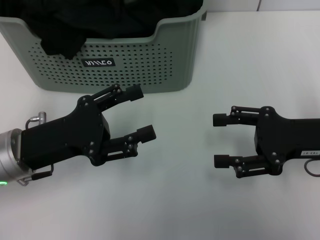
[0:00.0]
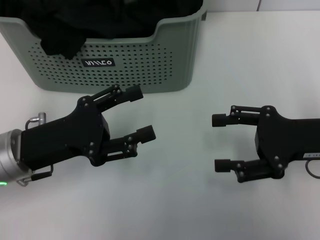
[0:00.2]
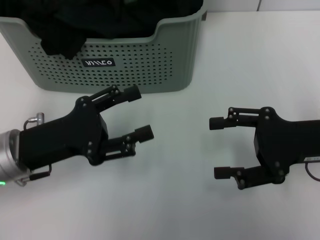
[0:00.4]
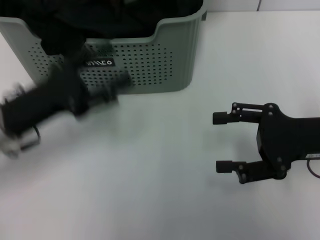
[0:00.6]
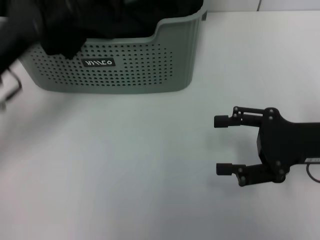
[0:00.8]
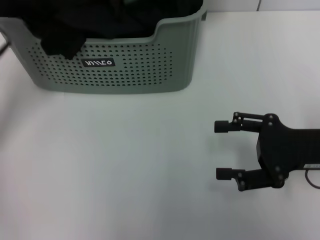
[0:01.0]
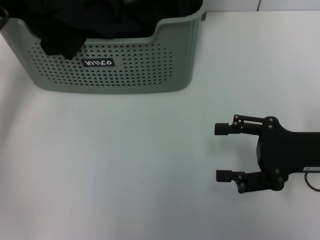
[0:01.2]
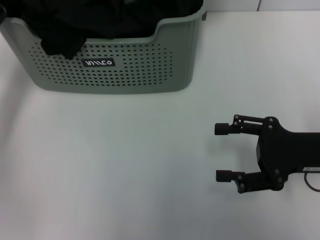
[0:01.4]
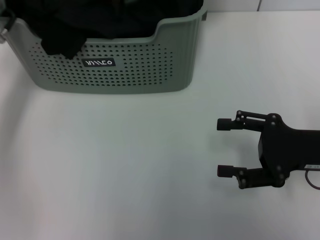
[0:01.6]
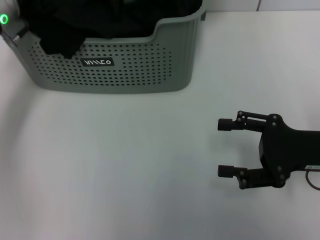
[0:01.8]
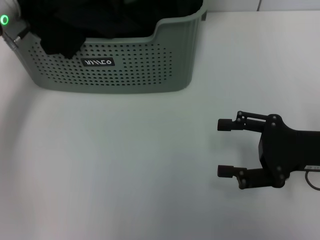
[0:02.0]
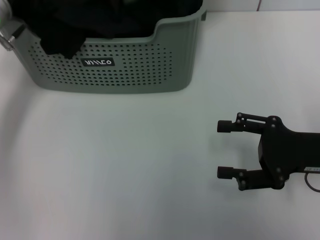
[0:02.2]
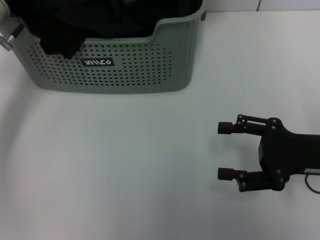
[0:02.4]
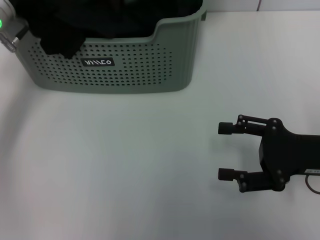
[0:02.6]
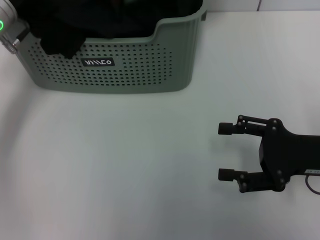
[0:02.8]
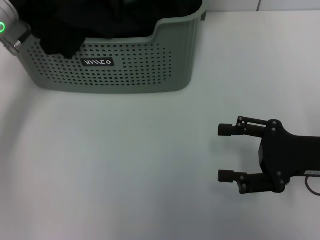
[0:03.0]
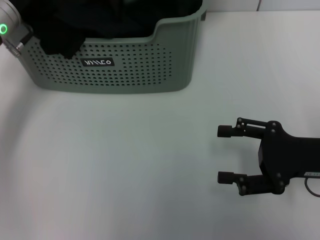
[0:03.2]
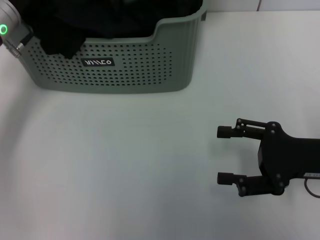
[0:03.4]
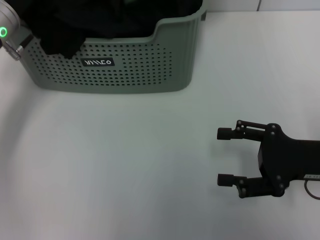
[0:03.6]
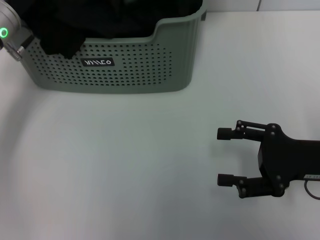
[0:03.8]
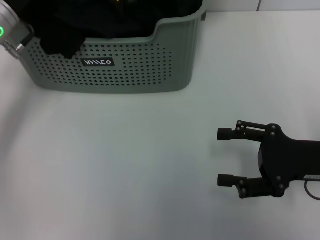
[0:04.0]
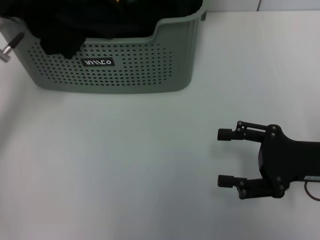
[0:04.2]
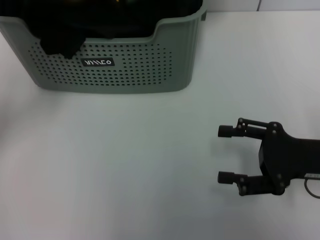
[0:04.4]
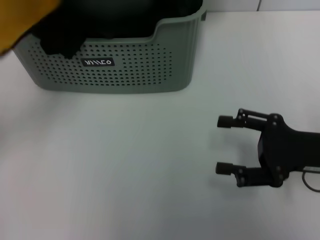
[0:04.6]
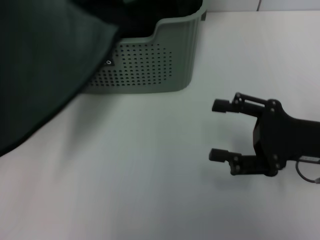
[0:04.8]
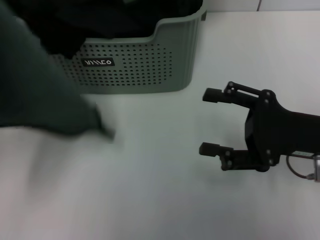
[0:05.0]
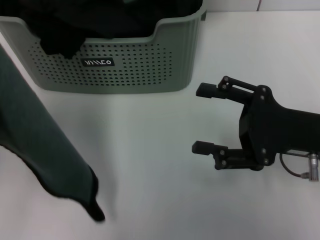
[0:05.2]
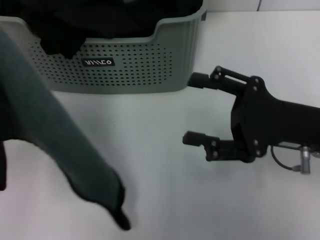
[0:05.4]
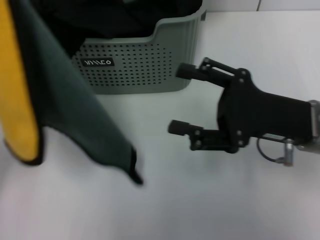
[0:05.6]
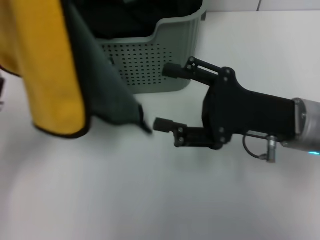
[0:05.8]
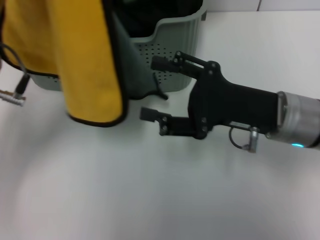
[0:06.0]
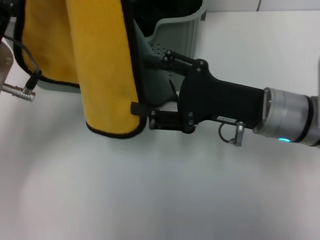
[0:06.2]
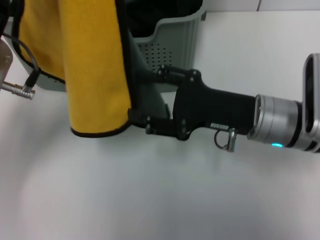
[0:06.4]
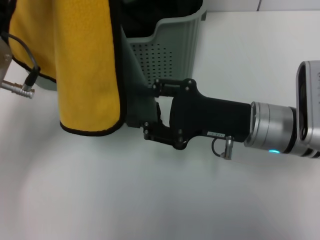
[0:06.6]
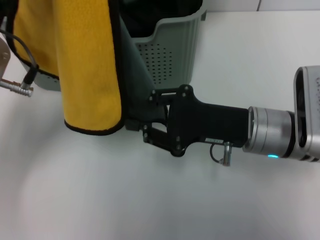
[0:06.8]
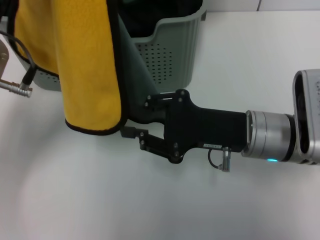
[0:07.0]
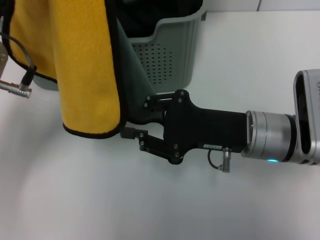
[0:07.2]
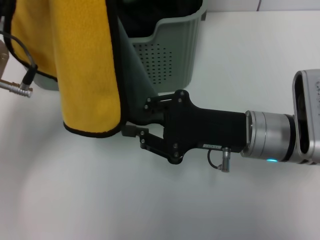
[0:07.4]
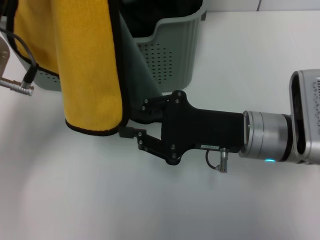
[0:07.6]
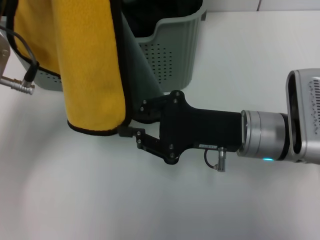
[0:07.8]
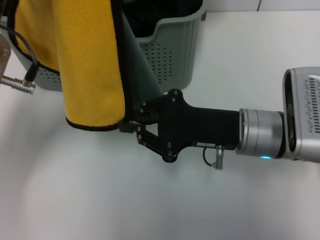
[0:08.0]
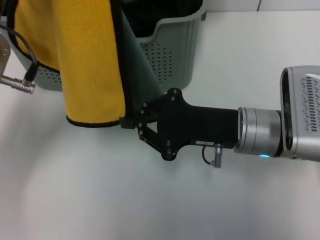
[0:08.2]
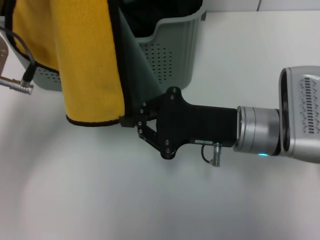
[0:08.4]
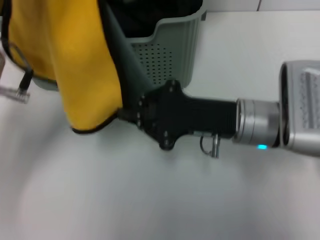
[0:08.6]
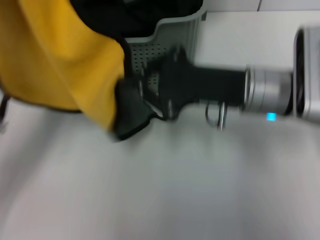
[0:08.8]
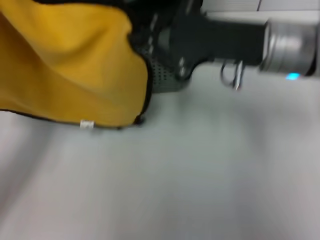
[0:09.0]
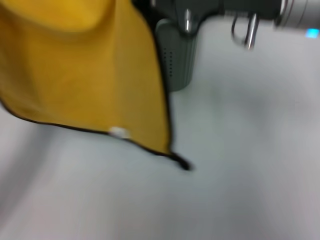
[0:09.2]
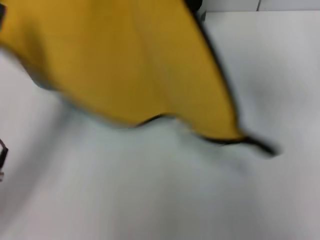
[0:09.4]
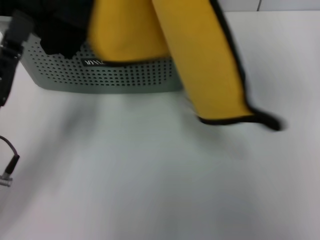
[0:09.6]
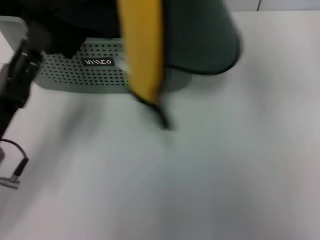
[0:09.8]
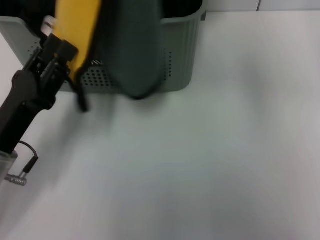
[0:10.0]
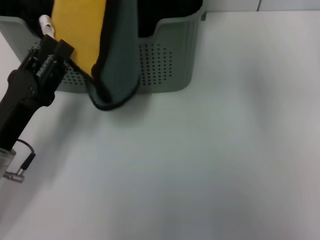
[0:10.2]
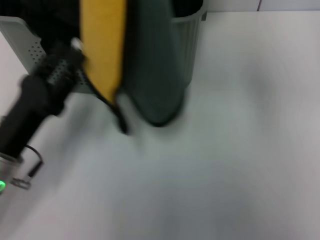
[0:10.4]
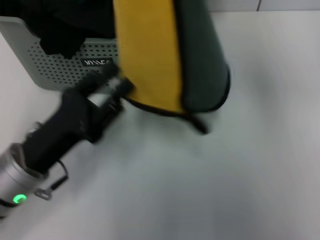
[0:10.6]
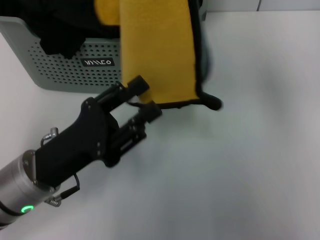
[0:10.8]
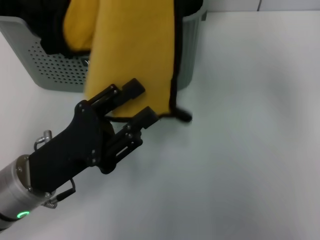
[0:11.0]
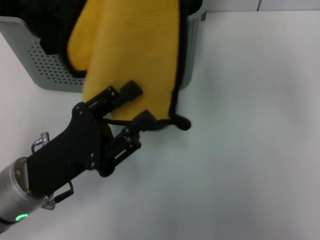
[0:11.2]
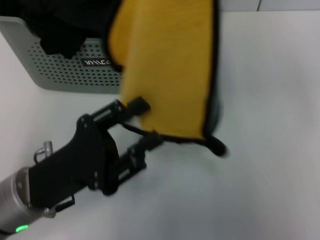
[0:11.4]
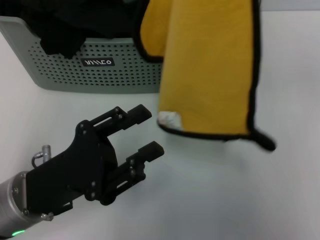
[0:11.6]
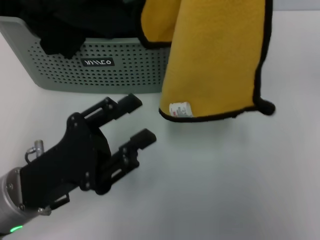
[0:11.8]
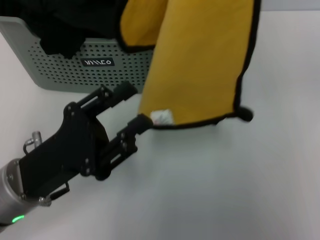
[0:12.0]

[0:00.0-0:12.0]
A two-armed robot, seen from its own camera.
Task of the whole recording: pick up the towel from the storage box and lay it flat on the table.
Step, 0:00.0 to 0:04.0: Pick up a towel with the left gripper.
Step, 0:04.2 to 0:08.2: Spread the towel flat with the left gripper.
0:00.0 to 0:01.6: The left gripper is displaced forward by about 15 cm.
0:01.6 to 0:03.0: The left gripper closes its fingers.
0:03.0 to 0:04.4: The left gripper is displaced backward by roughly 10 cm.
0:04.4 to 0:06.0: The right gripper goes roughly 10 cm to the left. The left gripper is displaced to the right by about 5 cm.
0:06.0 to 0:07.6: The right gripper closes its fingers.
0:07.6 to 0:09.0: The left gripper is displaced downward, backward and to the left by about 10 cm. The right gripper heads upward, covering approximately 10 cm.
0:09.0 to 0:10.4: The right gripper travels upward by approximately 15 cm, while the left gripper ends up about 5 cm from where it was, and opens up.
0:10.4 to 0:12.0: The right gripper shifts some 5 cm to the right.

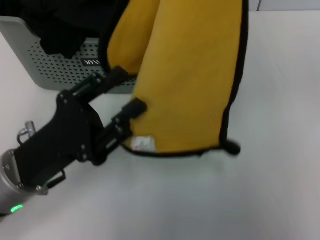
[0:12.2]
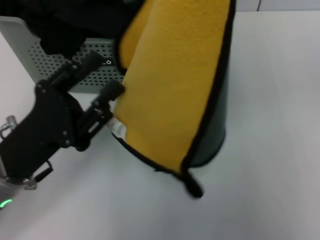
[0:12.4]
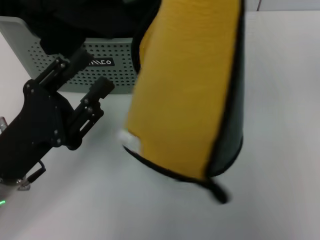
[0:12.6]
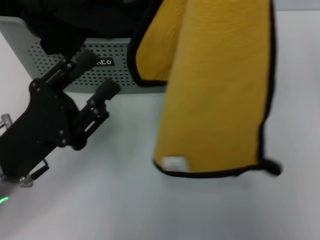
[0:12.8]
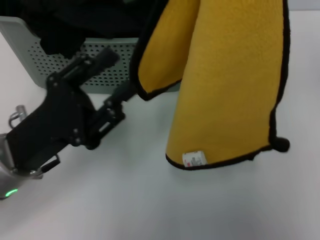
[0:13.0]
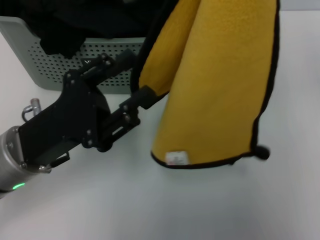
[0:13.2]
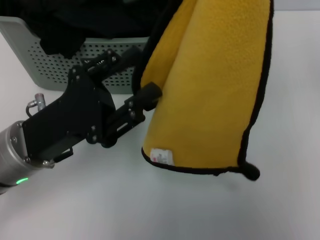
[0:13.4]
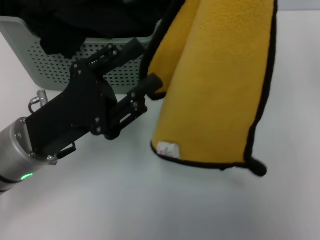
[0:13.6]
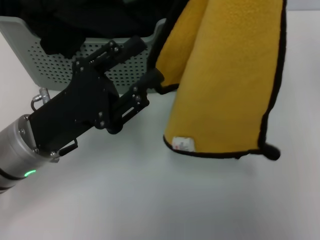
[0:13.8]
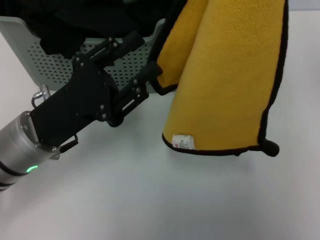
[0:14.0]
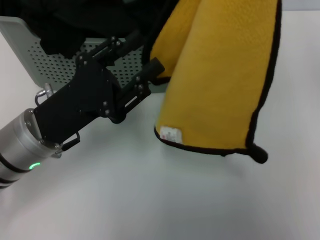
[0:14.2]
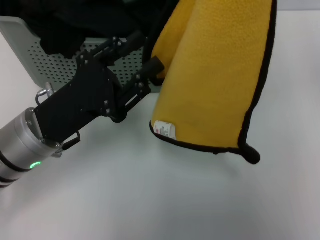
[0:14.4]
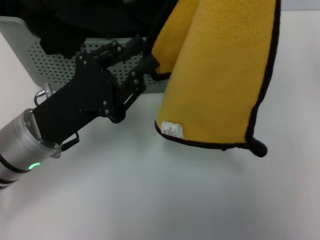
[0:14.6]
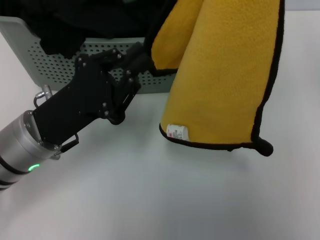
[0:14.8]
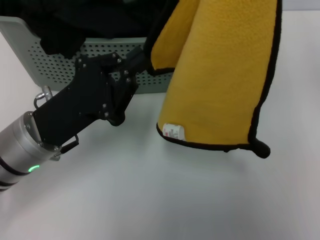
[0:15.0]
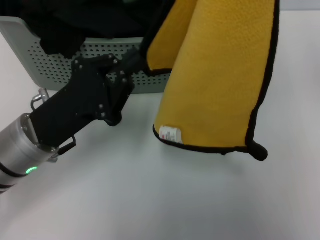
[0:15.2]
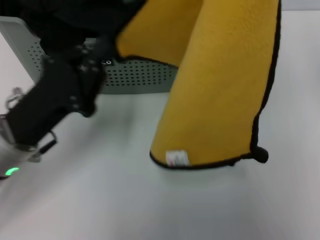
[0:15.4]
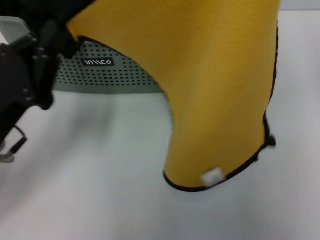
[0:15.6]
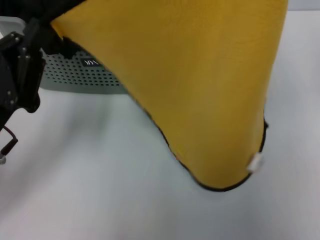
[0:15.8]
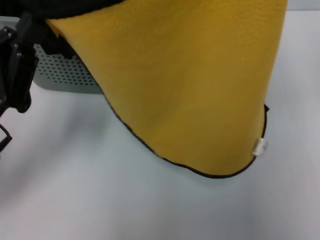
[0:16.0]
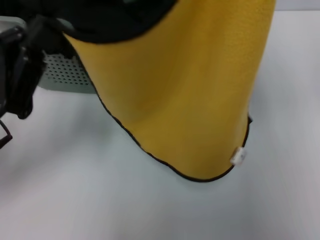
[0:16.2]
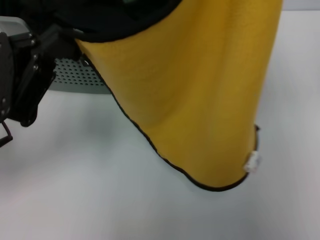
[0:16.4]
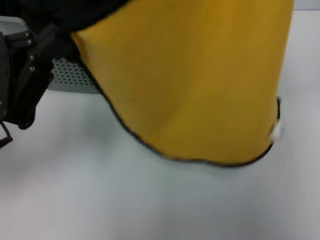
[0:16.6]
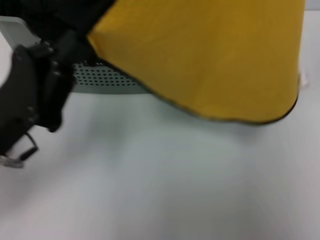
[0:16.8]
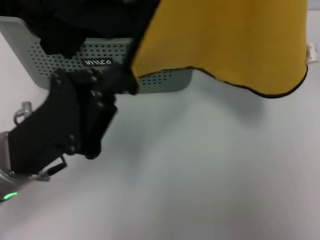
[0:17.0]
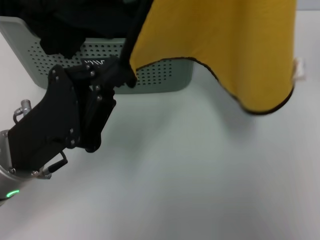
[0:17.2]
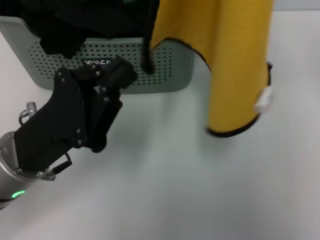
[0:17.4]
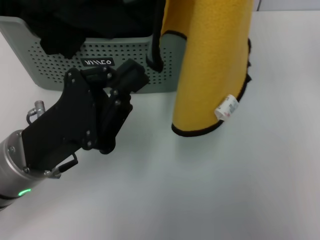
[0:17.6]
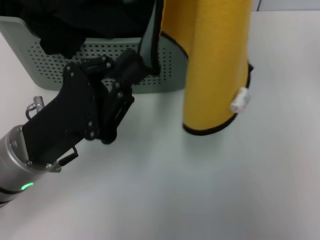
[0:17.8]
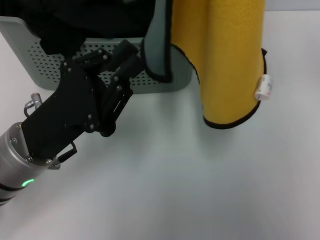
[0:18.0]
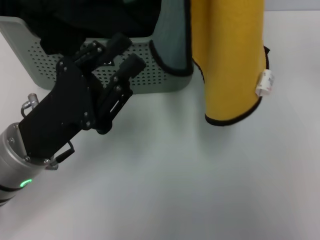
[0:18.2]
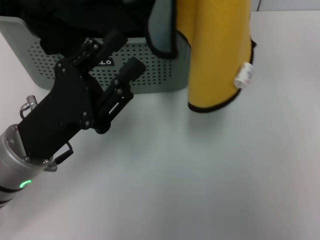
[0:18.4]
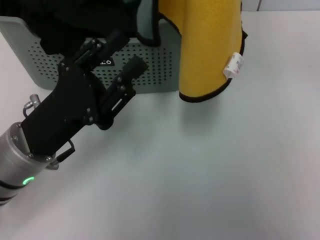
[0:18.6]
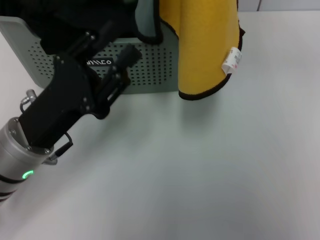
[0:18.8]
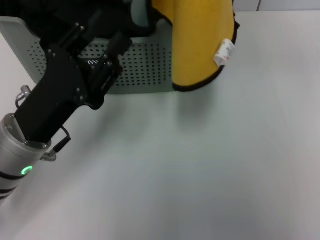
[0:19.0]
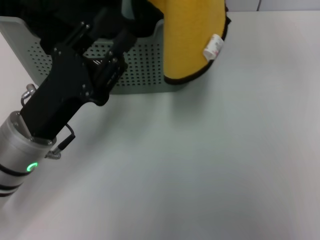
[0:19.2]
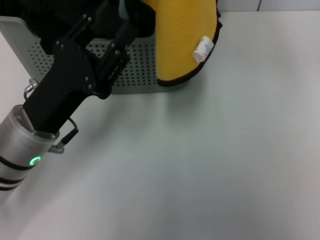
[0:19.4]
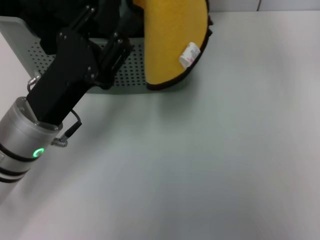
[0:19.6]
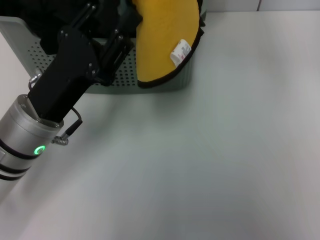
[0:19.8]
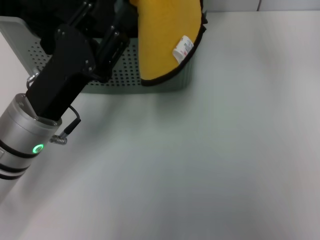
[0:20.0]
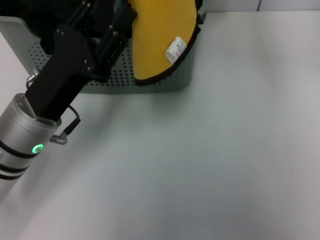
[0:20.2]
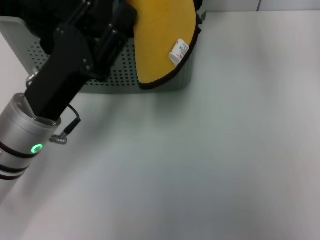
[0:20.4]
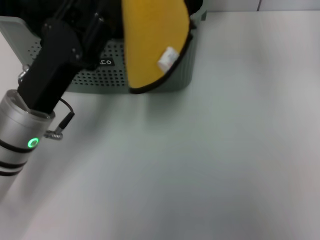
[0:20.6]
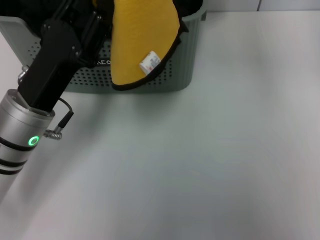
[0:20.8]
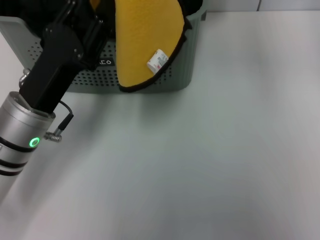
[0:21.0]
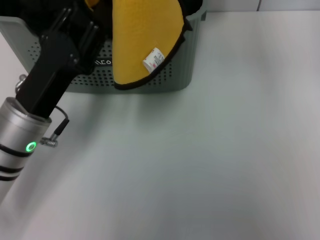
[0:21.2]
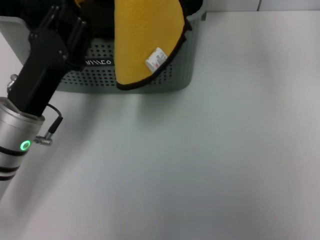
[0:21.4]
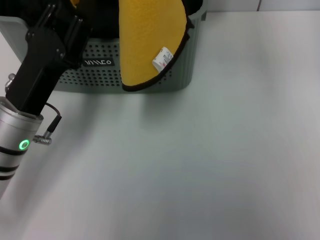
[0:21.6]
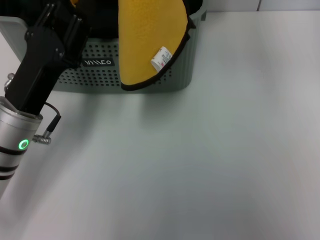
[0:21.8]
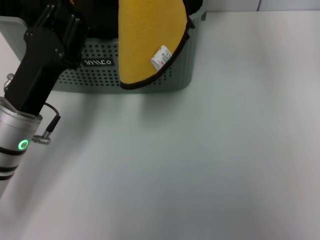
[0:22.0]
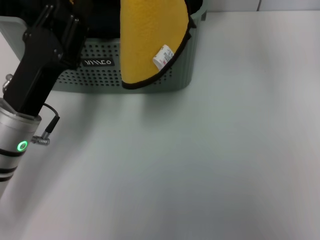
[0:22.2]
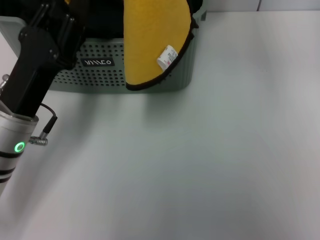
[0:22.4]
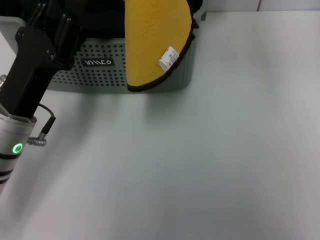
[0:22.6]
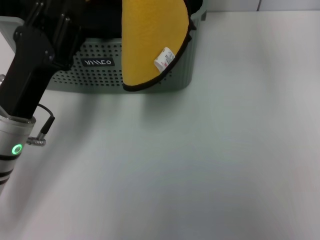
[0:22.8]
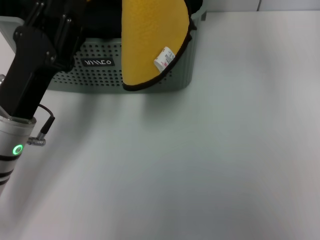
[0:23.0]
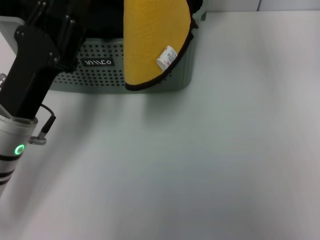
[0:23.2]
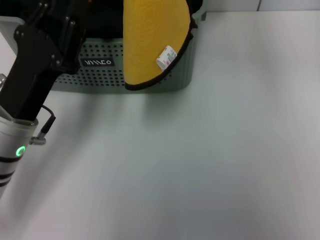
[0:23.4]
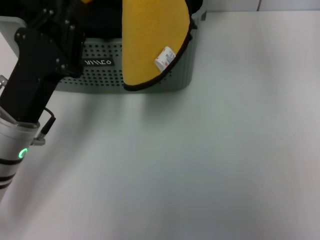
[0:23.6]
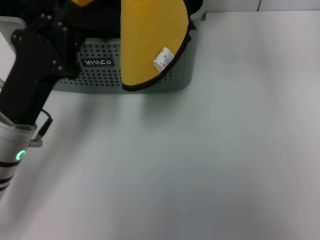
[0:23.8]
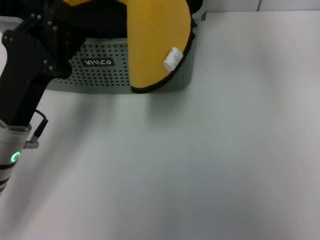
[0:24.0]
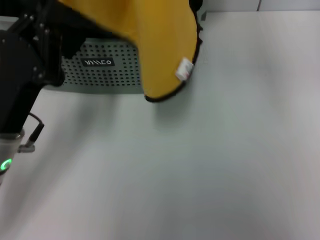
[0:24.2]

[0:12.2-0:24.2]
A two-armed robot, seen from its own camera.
Task of the whole recording: pick up the towel from the storage box and lay it flat on the table.
0:13.8 to 0:15.2: The left gripper closes up.
0:15.2 to 0:16.6: The right gripper is displaced downward by some 10 cm. The left gripper shifts approximately 5 cm upward and to the left.
0:16.6 to 0:18.2: The right gripper shifts some 10 cm upward, while the left gripper moves to the right, some 5 cm.
0:18.2 to 0:19.8: The right gripper shifts about 5 cm to the left.
0:19.8 to 0:22.6: The grippers stay close to where they were, moving slightly.
0:22.6 to 0:24.2: The left gripper closes its fingers.
